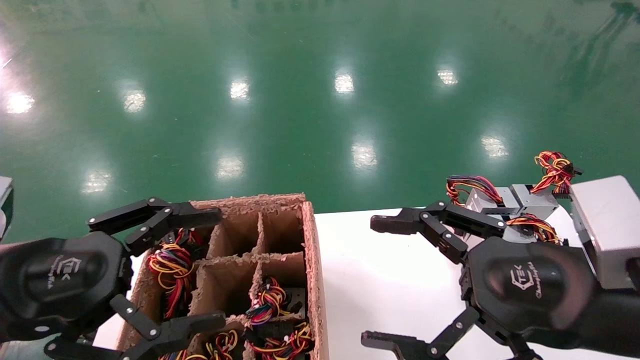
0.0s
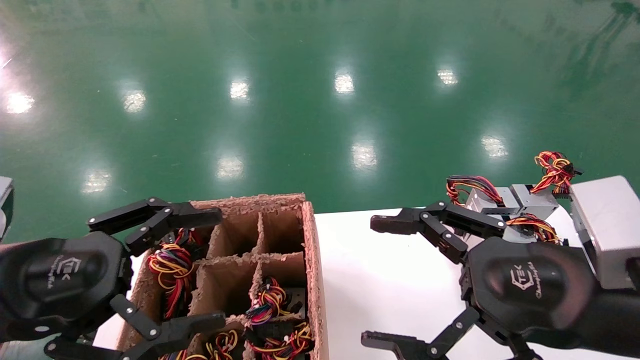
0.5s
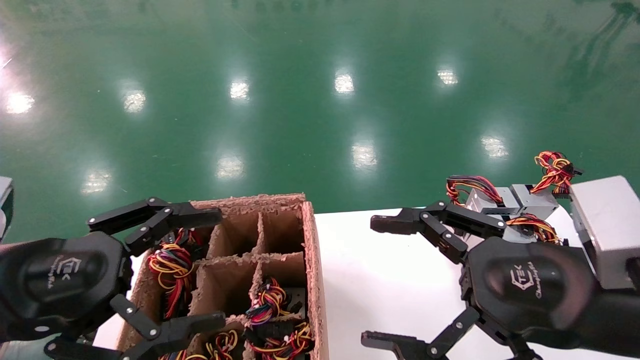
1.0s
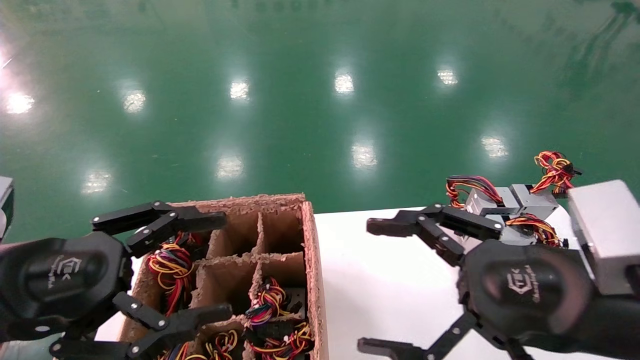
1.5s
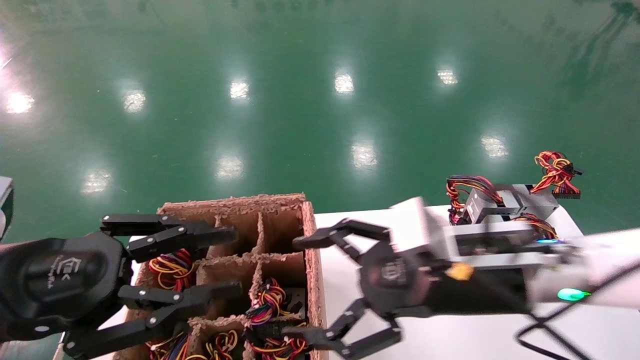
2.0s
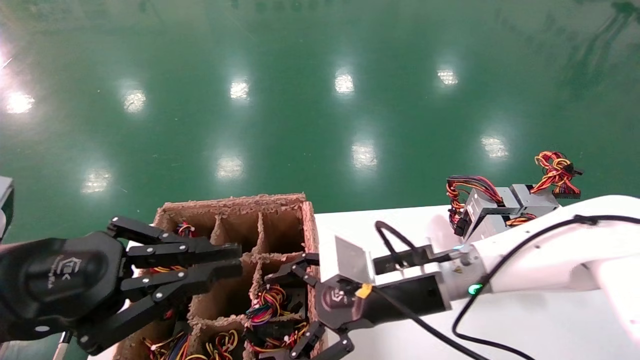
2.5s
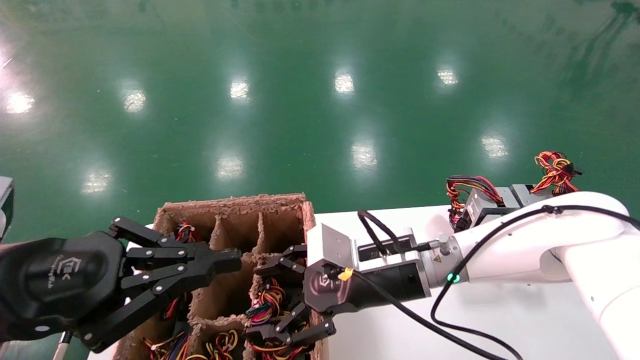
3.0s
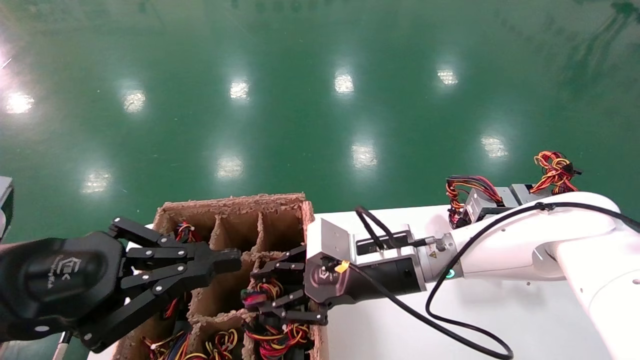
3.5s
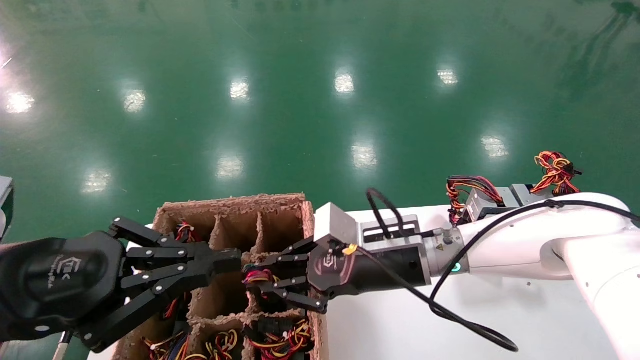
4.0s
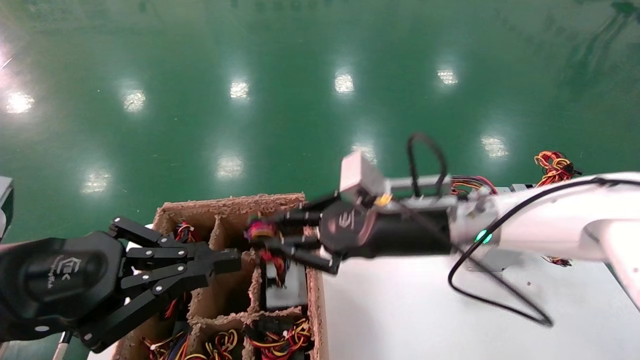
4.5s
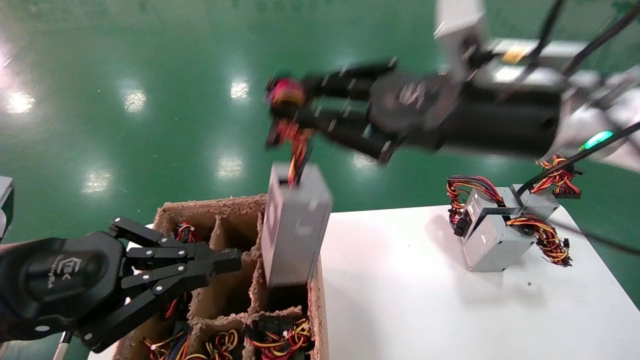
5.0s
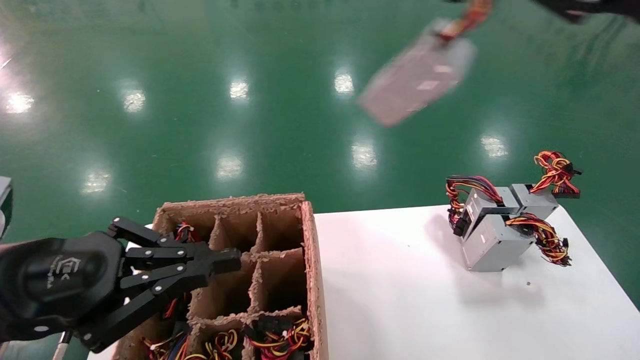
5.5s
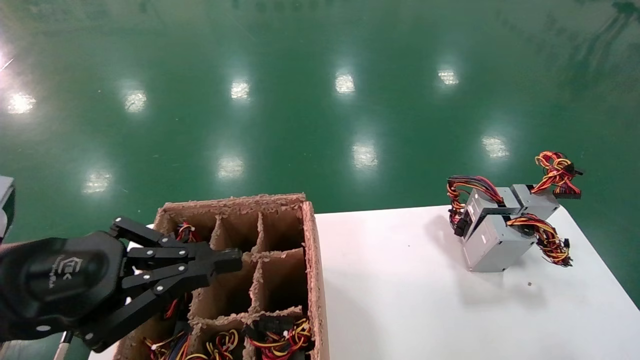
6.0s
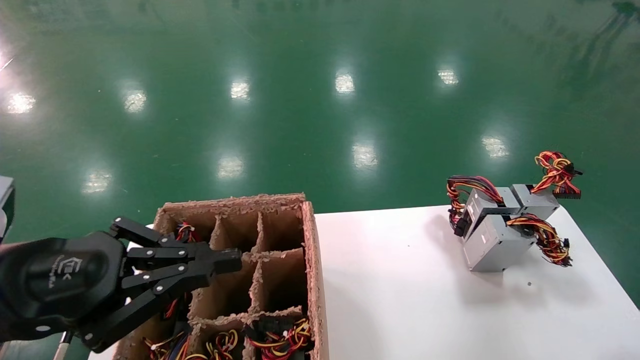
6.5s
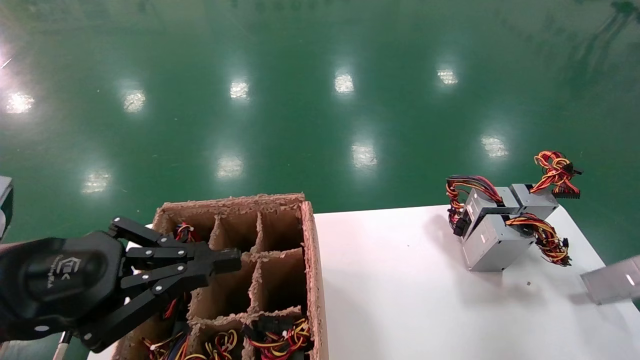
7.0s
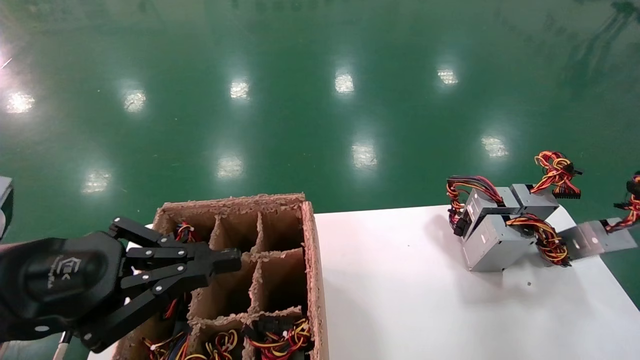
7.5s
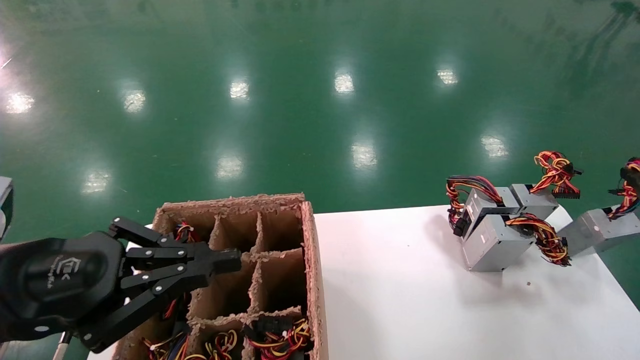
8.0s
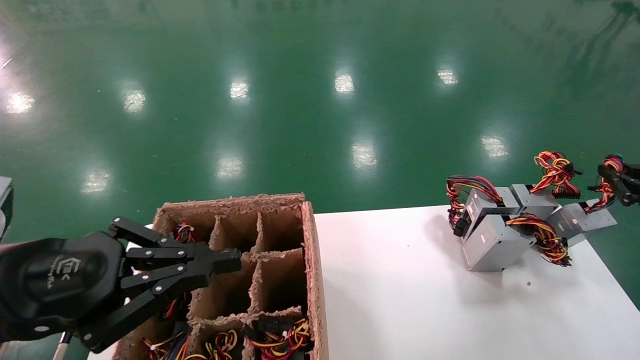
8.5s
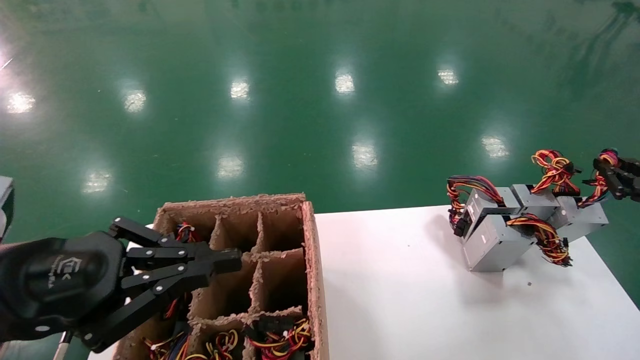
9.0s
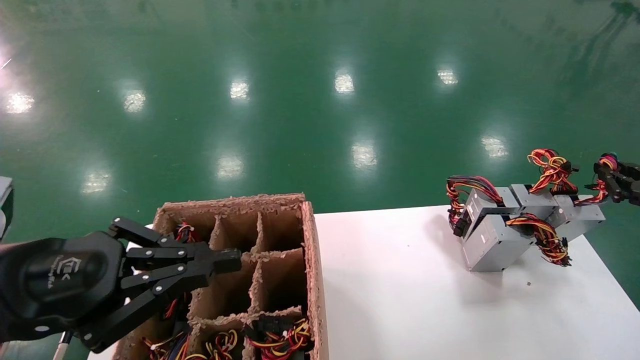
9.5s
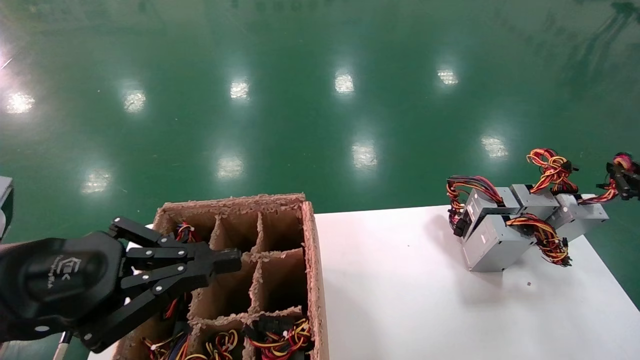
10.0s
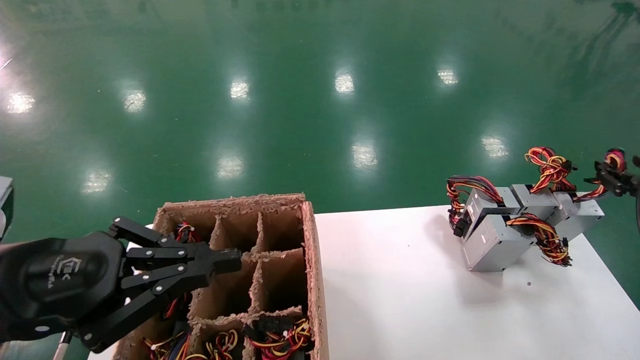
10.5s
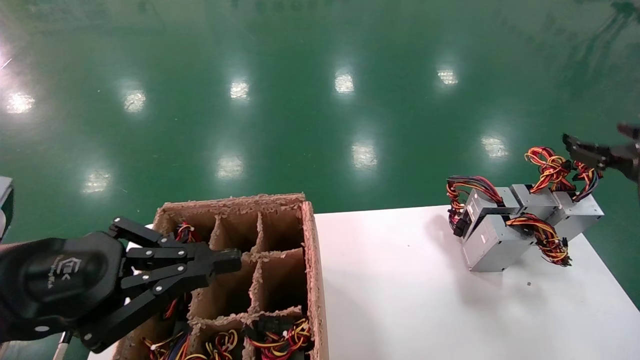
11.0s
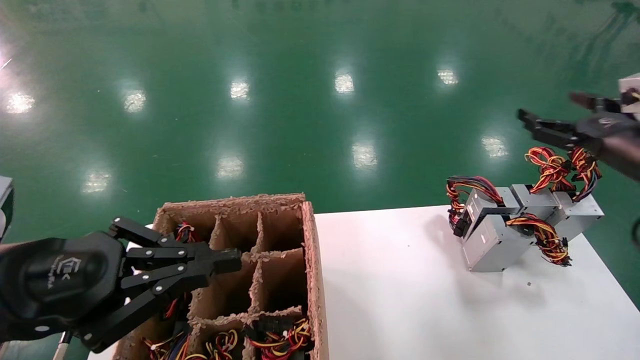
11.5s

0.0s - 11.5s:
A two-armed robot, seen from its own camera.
Step, 2.0s - 4.0s: Grab the main unit power supply from the containment box.
Step, 4.5s - 10.0s: Place the main unit power supply in the designated area.
0.0s - 2.0s: The right gripper heads forward and to the left, covering approximately 10 cm. The left gripper closes.
2.0s - 4.0s: The left gripper closes up; the right gripper travels forward and to the left by roughly 10 cm, and closes its fingers.
4.0s - 6.0s: The right gripper travels to the right, backward and upward by some 50 cm.
6.0s - 7.5s: The right gripper shifts some 25 cm downward and forward.
7.5s - 9.5s: The right gripper is displaced forward by roughly 10 cm.
9.5s - 11.5s: The right gripper goes roughly 10 cm to the left and upward, and opens its fingers.

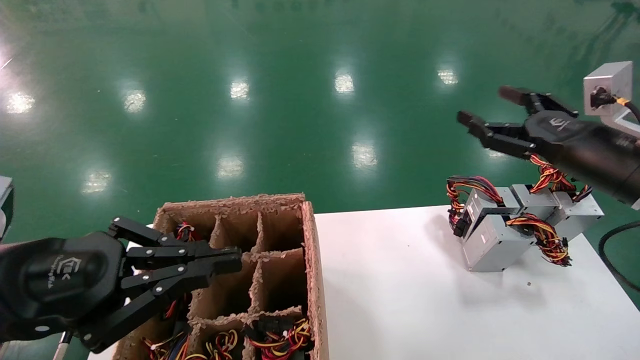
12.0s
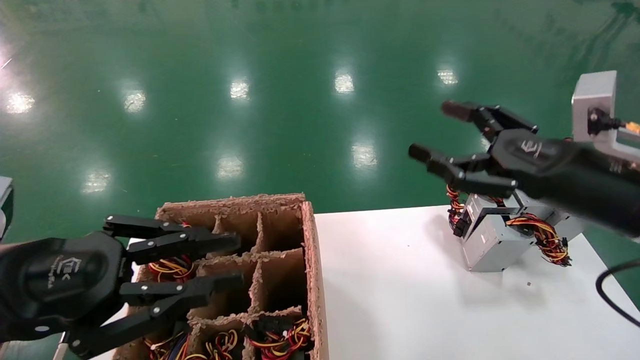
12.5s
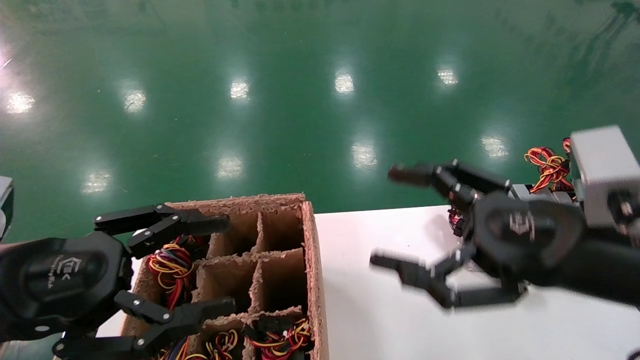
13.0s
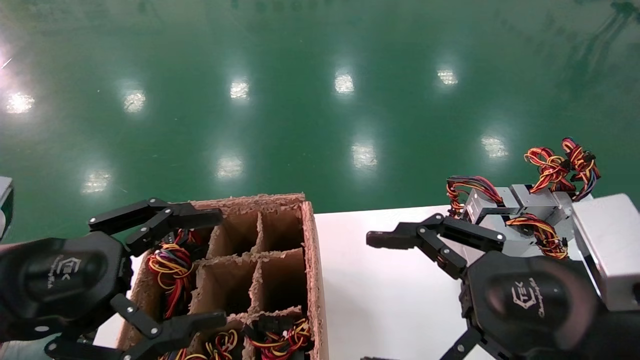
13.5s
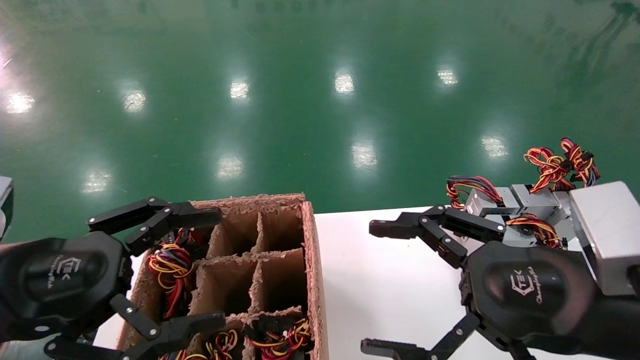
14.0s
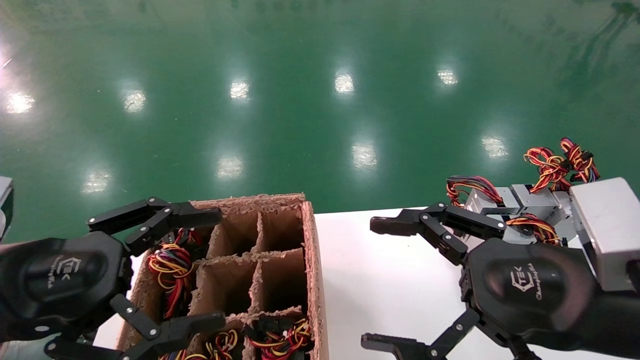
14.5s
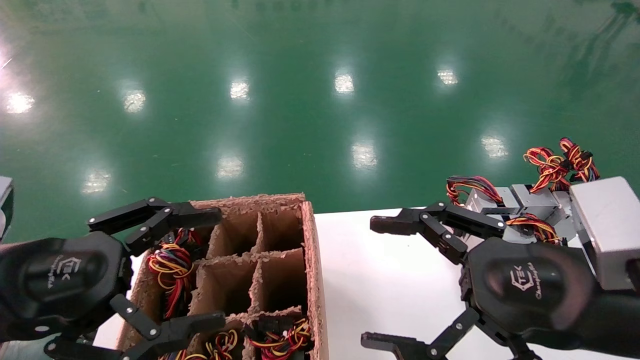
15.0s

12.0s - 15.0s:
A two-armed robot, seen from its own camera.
12.0s - 13.5s: The right gripper goes some 20 cm backward and to the left. Meanwhile the left gripper opens its fingers.
13.5s - 15.0s: Both grippers stay put.

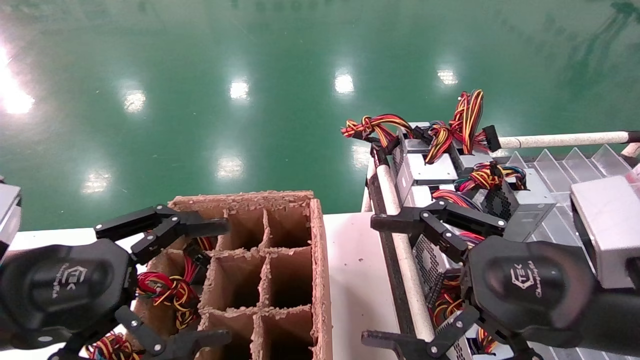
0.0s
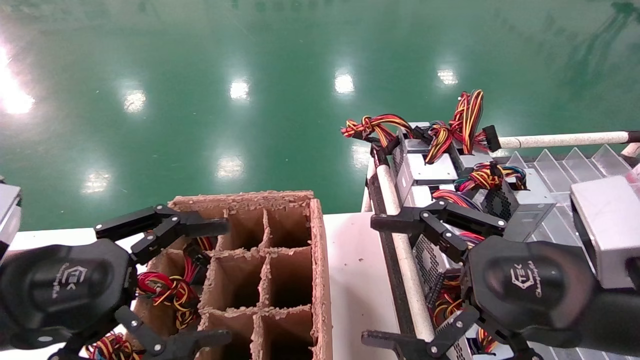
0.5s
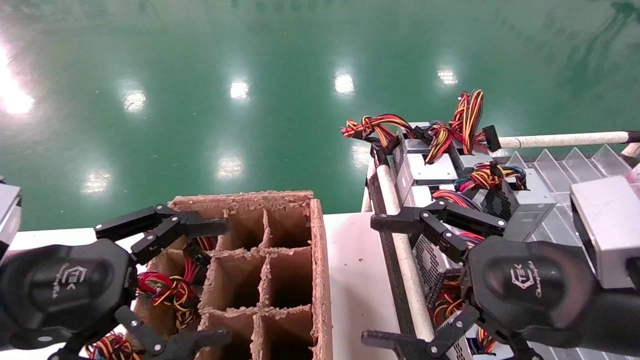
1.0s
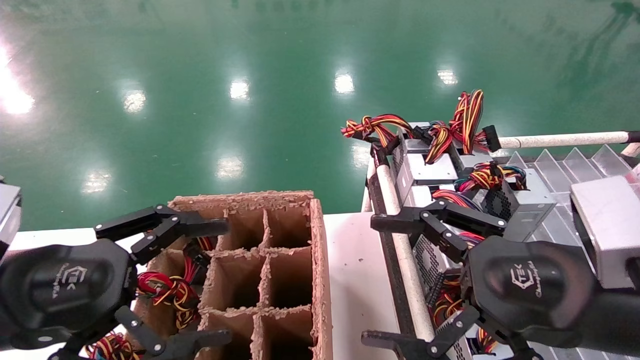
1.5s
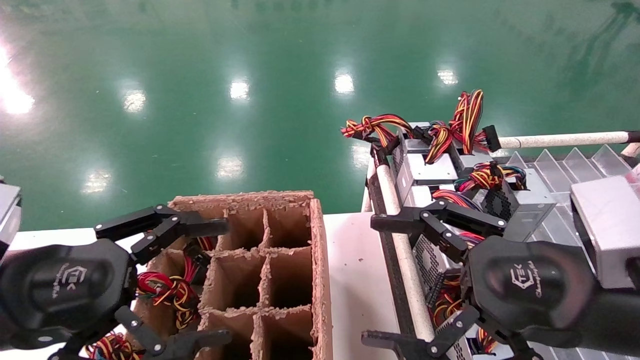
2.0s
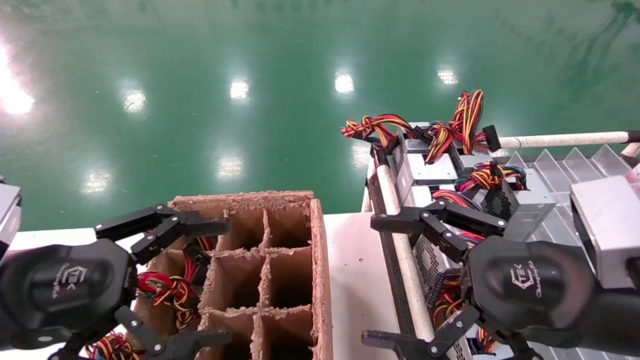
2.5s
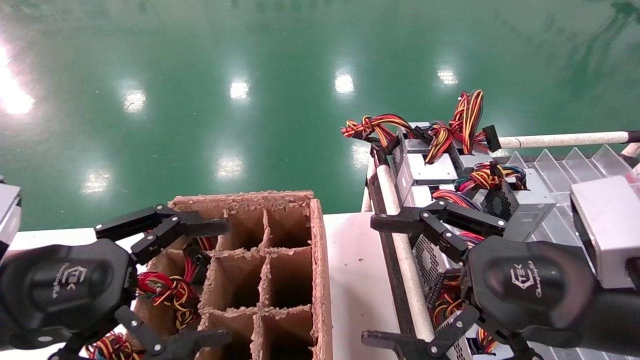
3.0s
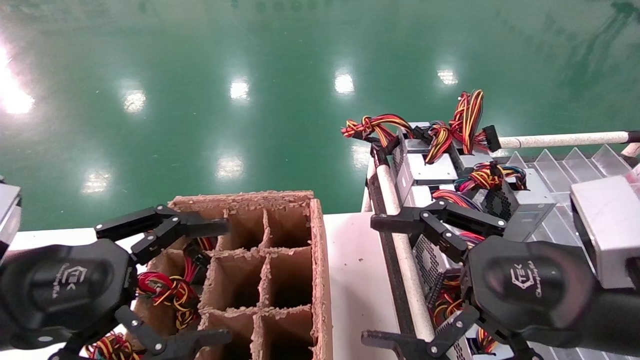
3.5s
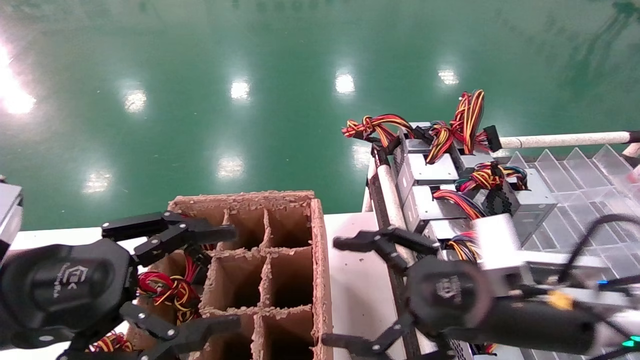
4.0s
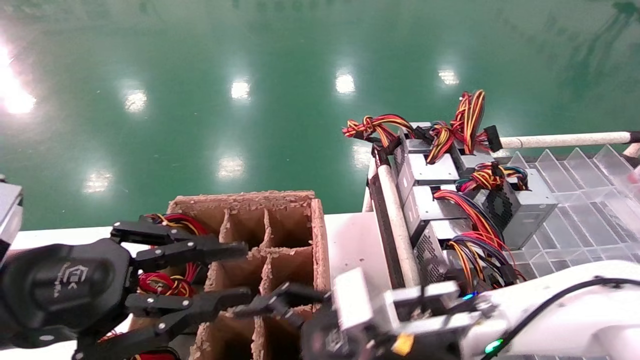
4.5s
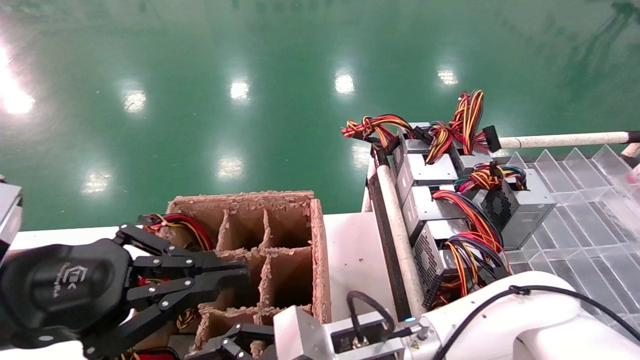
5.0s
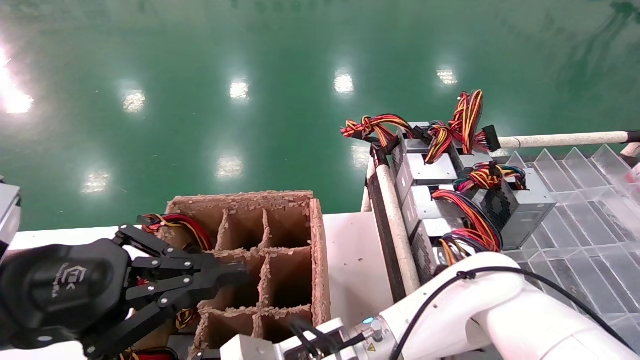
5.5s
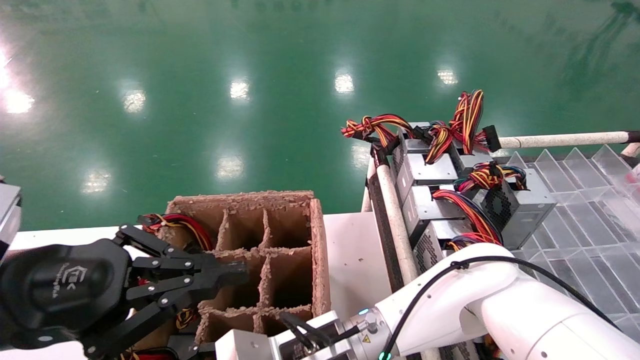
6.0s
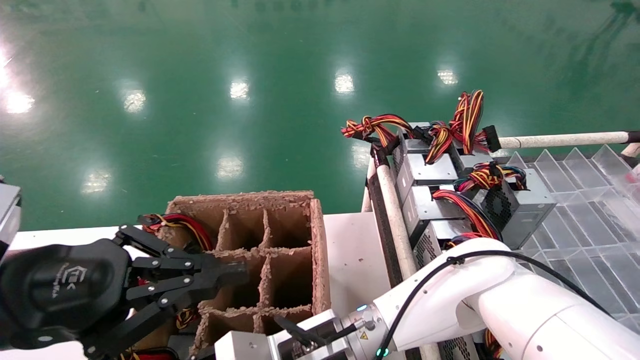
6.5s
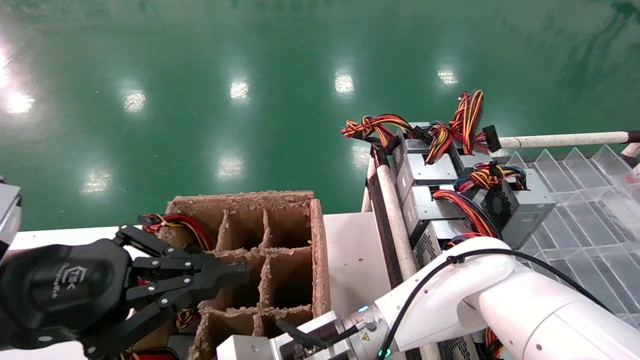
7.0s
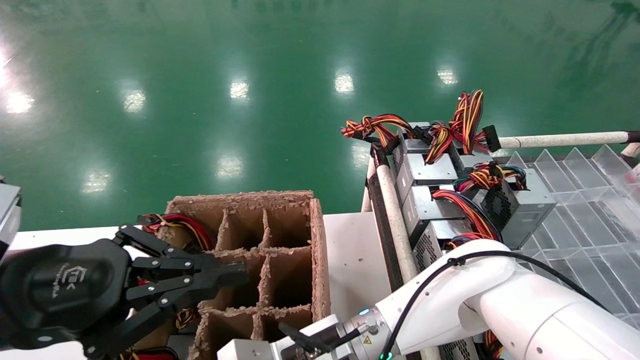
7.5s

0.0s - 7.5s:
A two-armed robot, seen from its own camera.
0.0s - 2.0s: The two grippers keep their place.
2.0s - 4.0s: The right gripper heads forward and downward, covering approximately 10 cm.
4.0s - 5.5s: The right gripper heads to the left and downward, covering some 20 cm, while the left gripper closes up.
5.5s - 7.5s: The right gripper closes.
